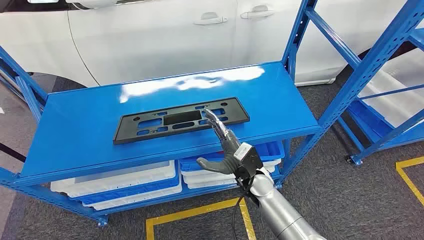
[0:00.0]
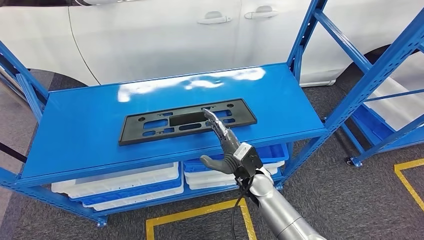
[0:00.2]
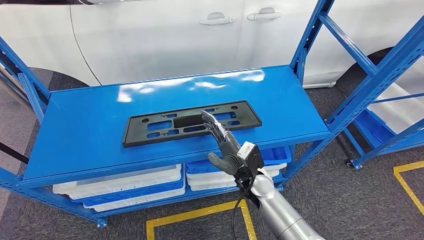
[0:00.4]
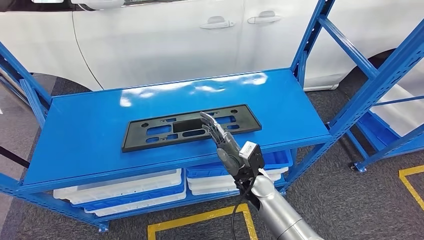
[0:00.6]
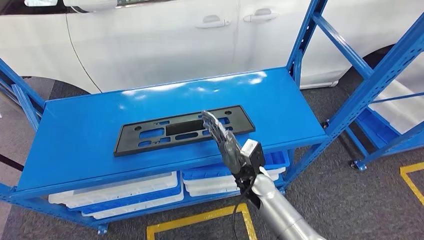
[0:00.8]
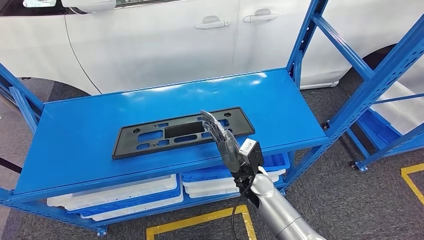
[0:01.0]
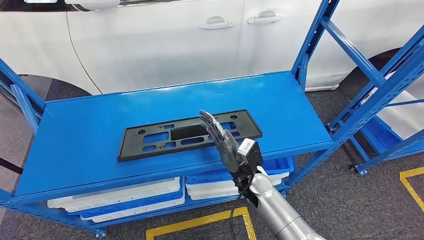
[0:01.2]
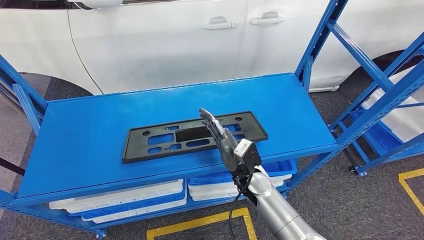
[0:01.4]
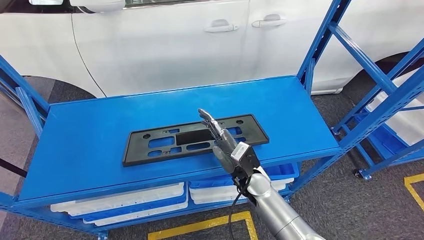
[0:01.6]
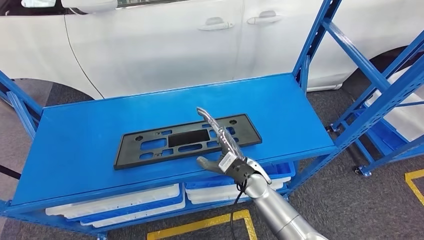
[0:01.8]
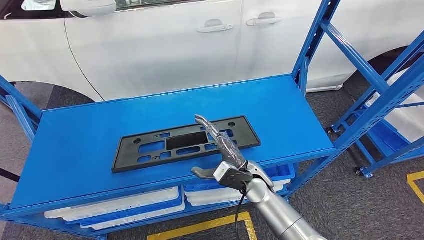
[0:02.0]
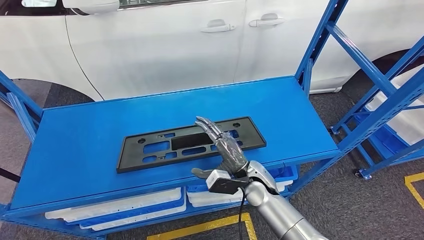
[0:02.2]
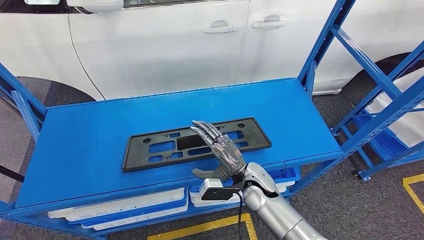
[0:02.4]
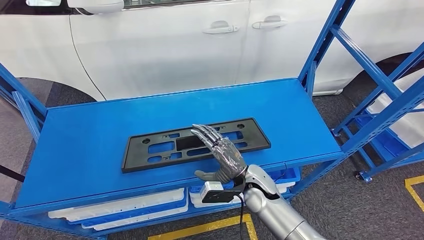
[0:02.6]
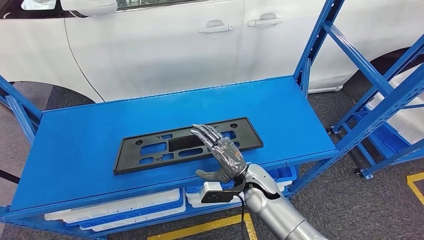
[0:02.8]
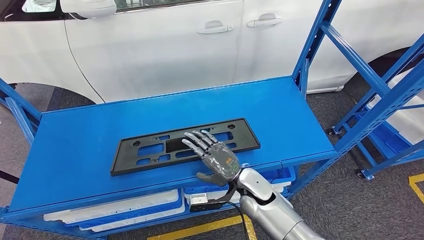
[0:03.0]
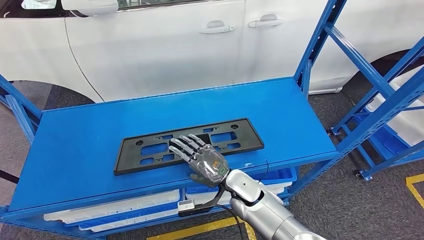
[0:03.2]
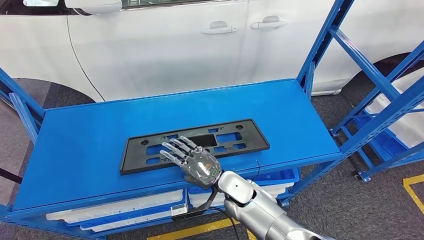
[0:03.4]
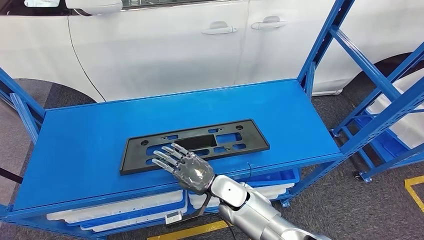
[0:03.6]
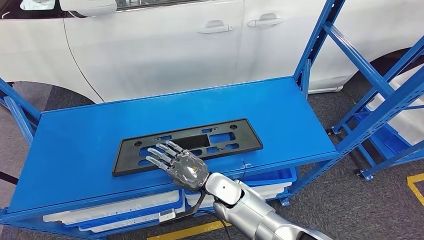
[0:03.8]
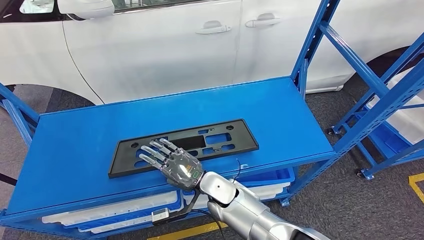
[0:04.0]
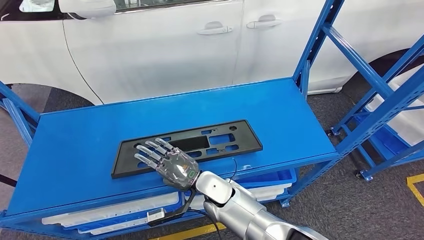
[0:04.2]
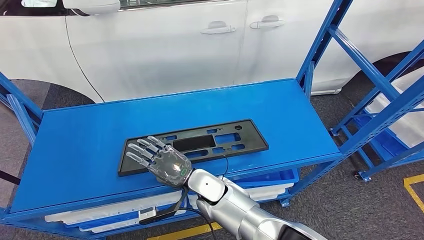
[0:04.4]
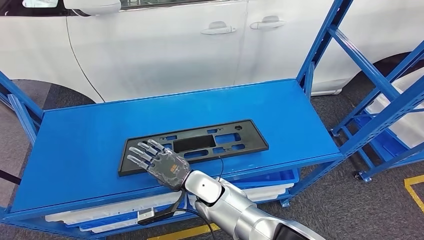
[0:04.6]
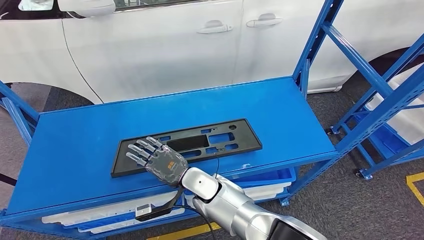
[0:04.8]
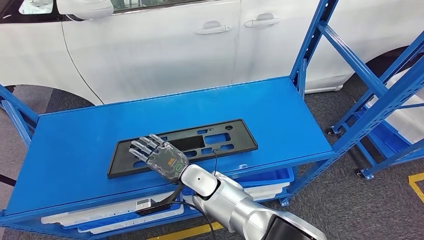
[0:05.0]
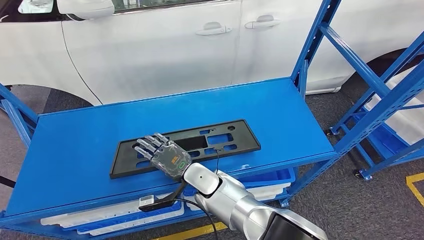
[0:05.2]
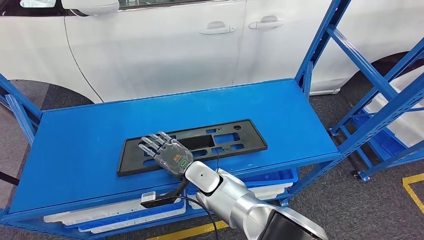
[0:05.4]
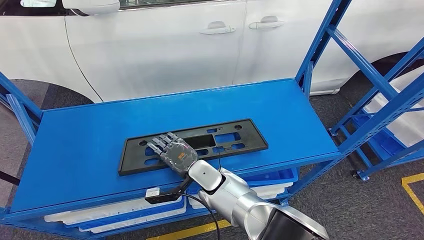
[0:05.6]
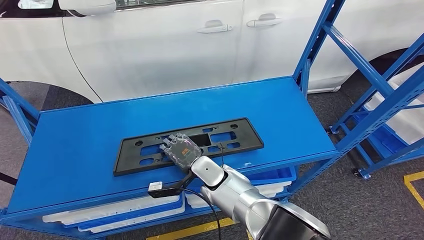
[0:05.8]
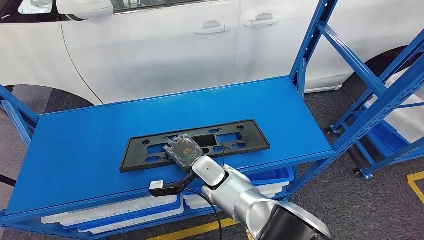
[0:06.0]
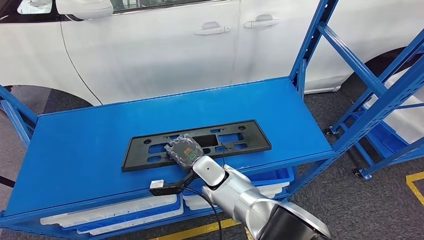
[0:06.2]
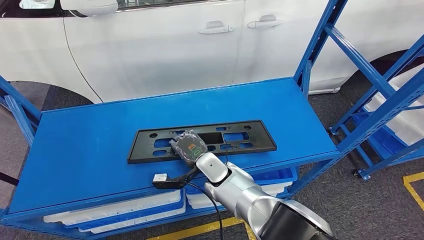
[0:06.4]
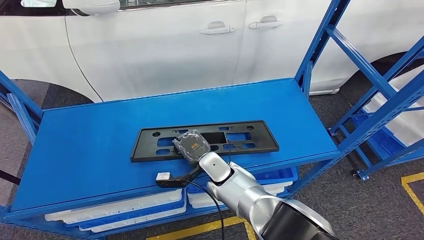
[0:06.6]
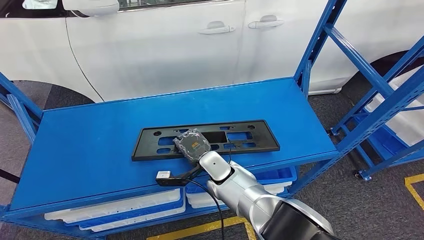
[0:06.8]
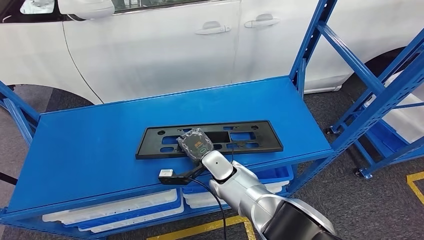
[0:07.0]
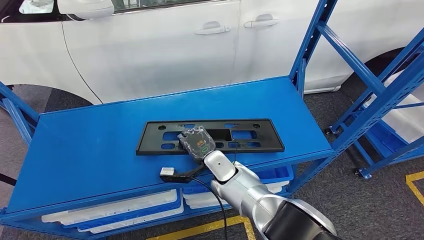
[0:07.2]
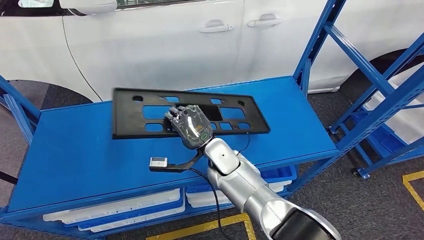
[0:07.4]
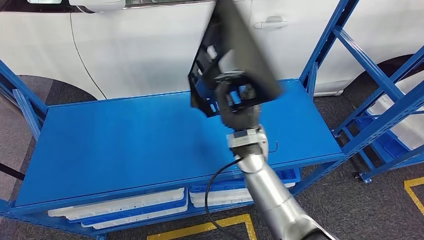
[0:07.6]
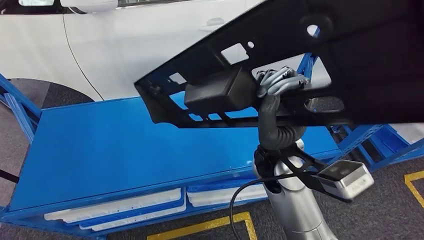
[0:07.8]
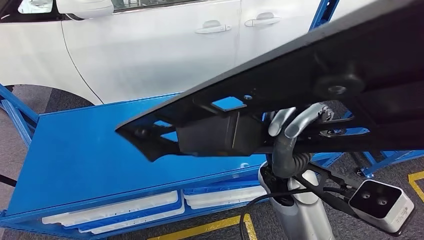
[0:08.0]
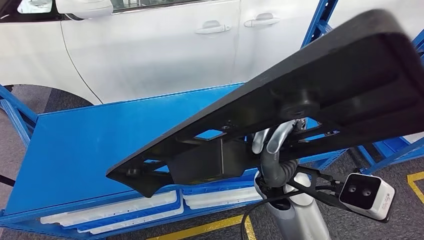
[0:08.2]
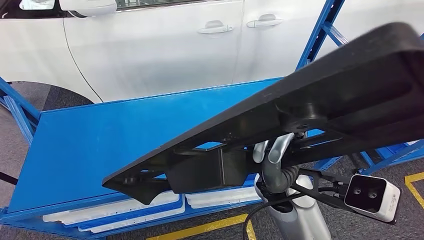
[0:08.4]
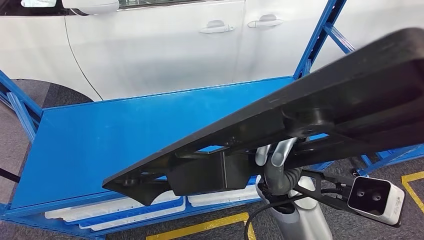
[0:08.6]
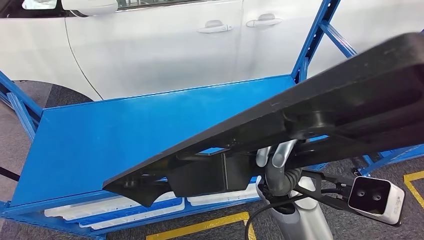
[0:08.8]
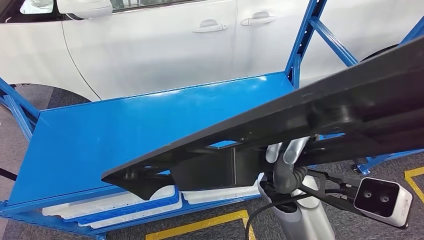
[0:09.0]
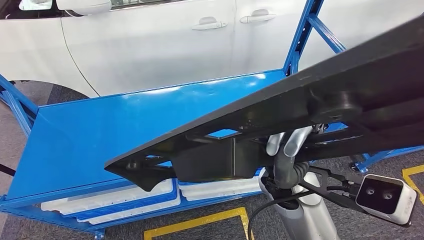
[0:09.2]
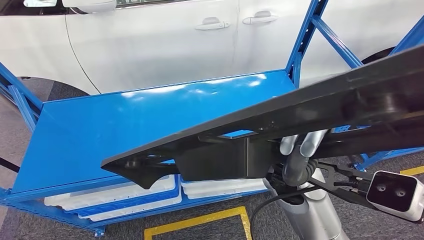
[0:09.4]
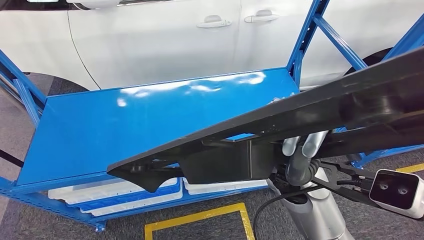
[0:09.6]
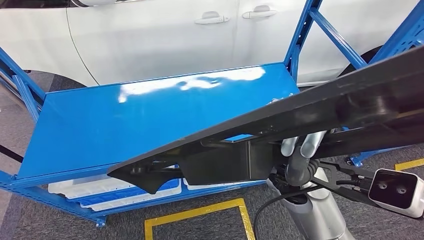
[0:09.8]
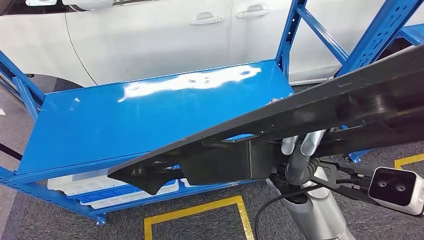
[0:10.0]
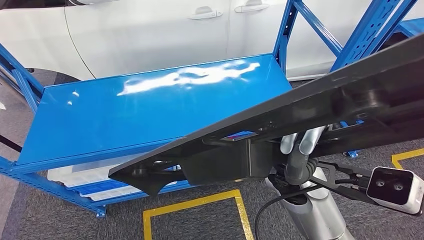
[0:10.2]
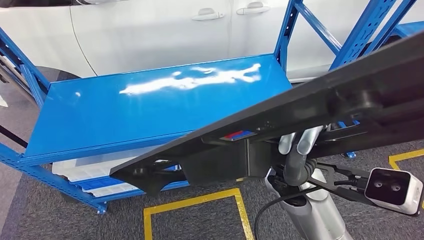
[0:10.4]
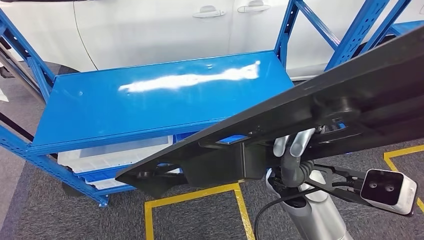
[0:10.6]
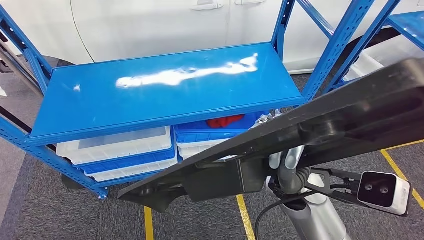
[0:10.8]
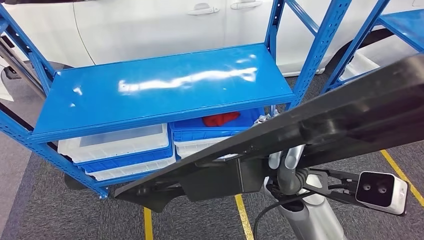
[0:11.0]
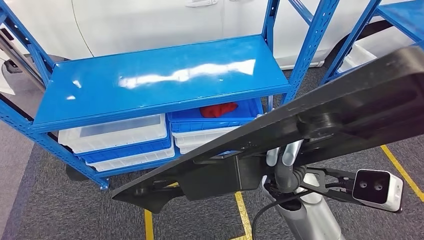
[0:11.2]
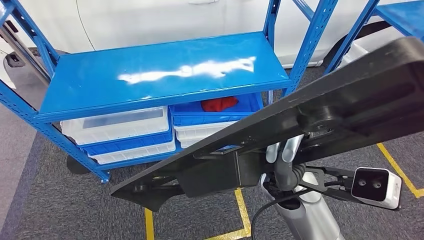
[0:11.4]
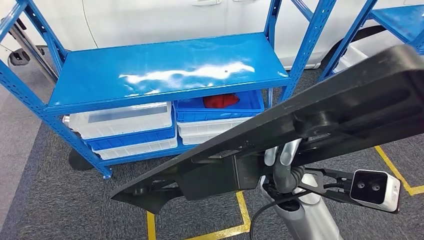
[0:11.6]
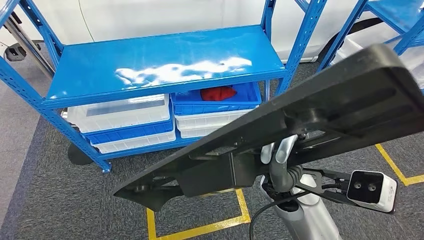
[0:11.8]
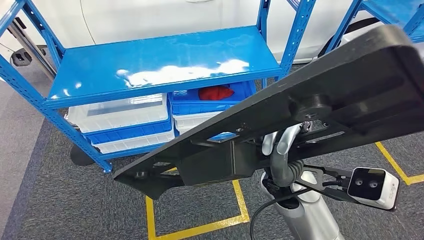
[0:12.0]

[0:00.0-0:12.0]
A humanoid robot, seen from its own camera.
Step, 0:00.0 to 0:07.6: Pick up the large material from the shelf.

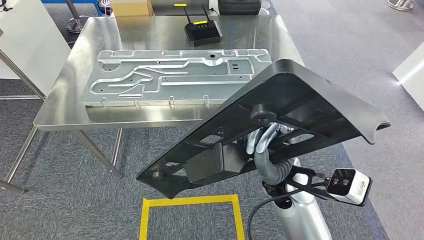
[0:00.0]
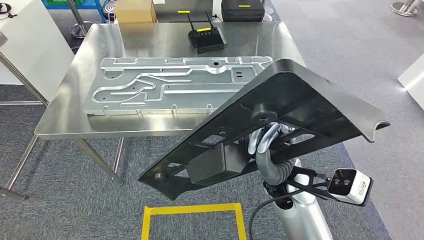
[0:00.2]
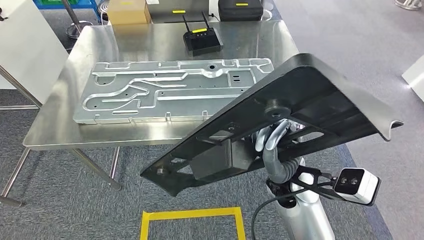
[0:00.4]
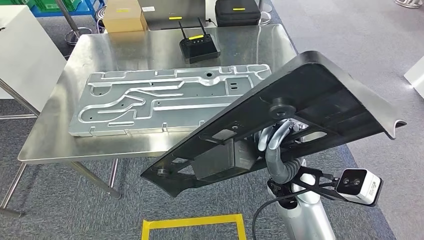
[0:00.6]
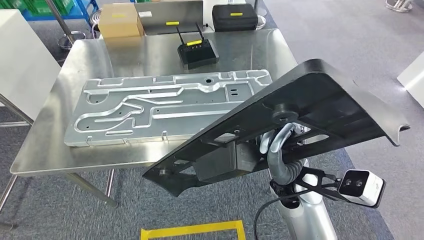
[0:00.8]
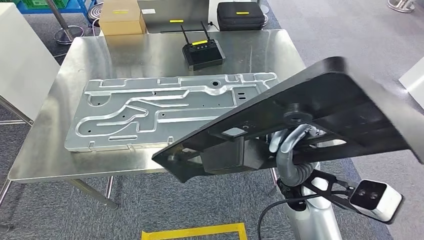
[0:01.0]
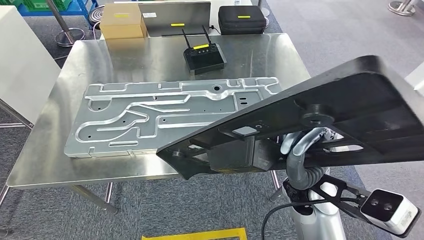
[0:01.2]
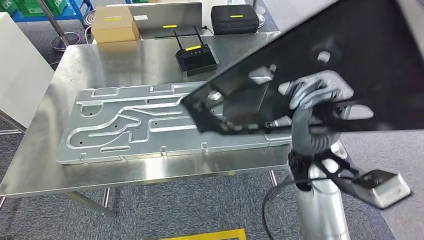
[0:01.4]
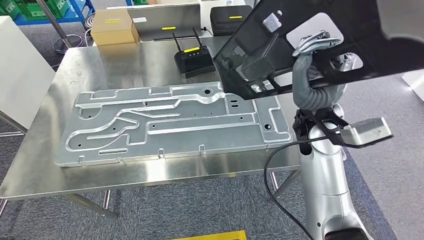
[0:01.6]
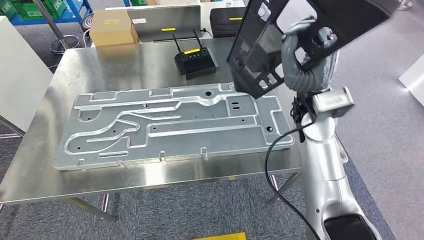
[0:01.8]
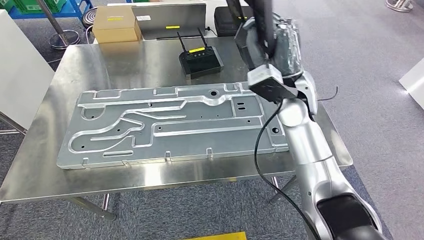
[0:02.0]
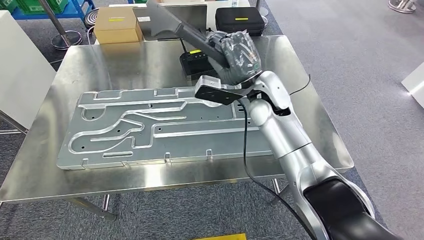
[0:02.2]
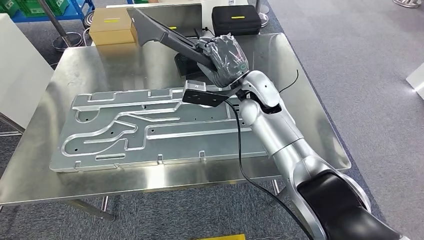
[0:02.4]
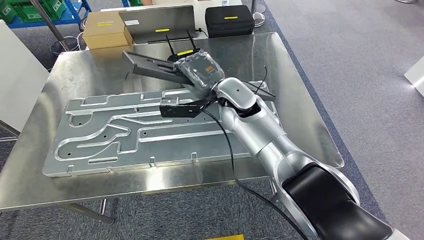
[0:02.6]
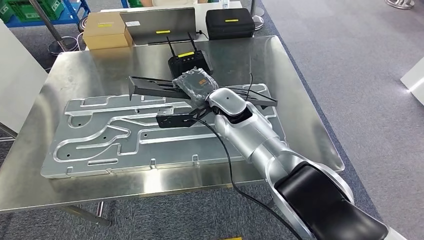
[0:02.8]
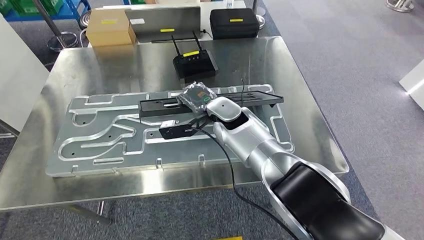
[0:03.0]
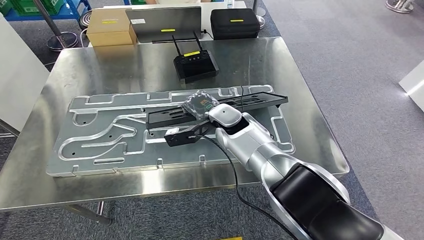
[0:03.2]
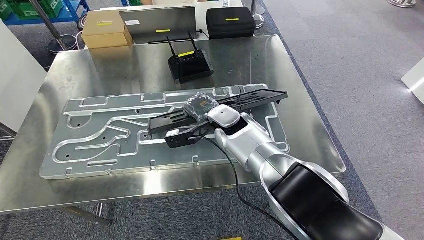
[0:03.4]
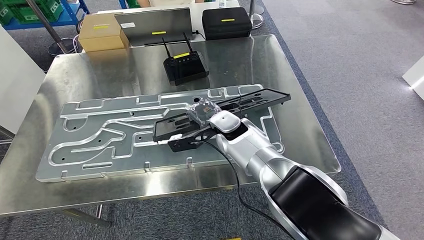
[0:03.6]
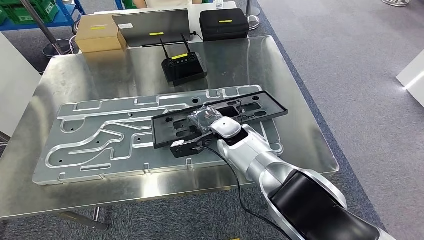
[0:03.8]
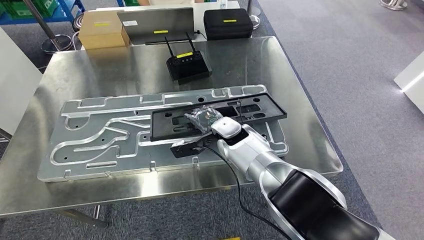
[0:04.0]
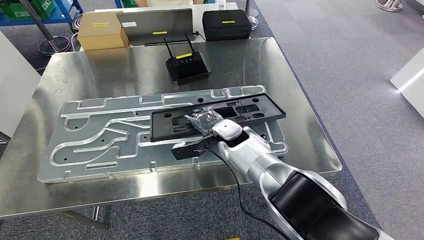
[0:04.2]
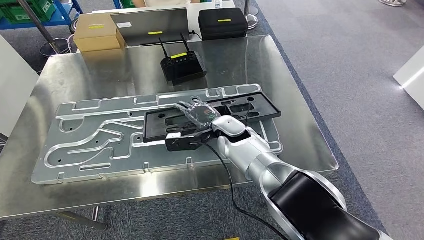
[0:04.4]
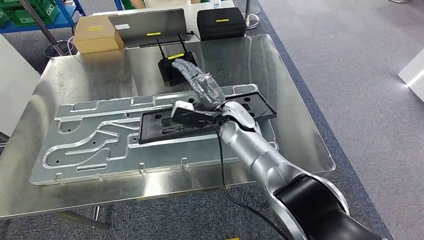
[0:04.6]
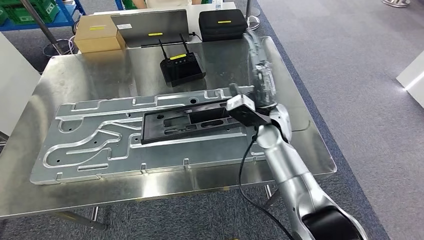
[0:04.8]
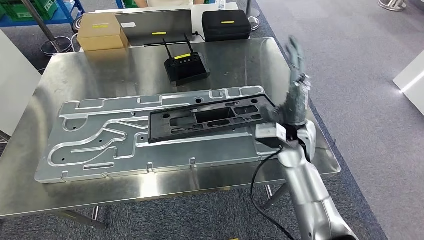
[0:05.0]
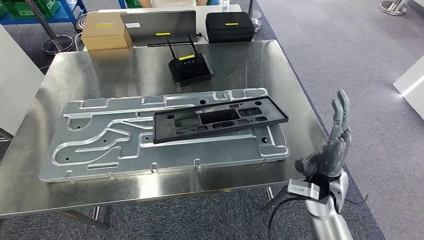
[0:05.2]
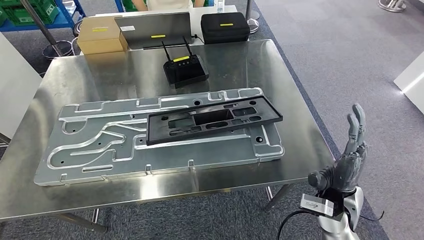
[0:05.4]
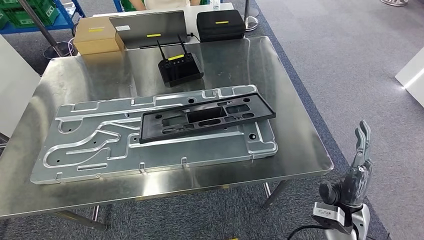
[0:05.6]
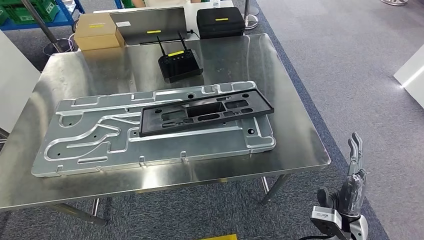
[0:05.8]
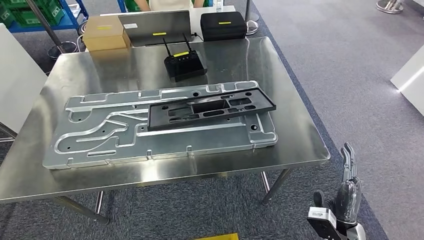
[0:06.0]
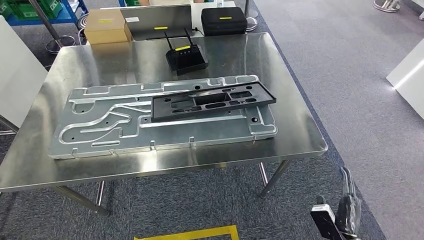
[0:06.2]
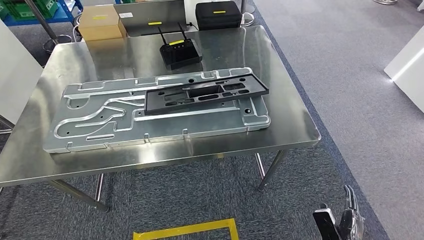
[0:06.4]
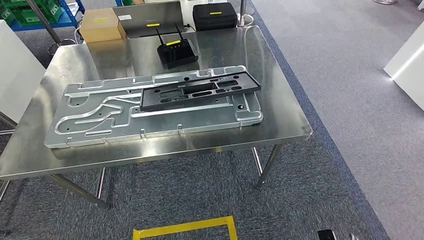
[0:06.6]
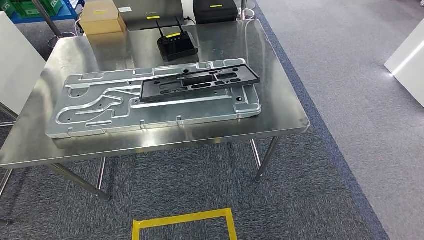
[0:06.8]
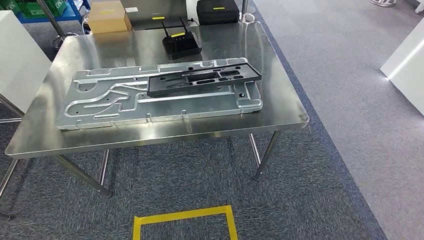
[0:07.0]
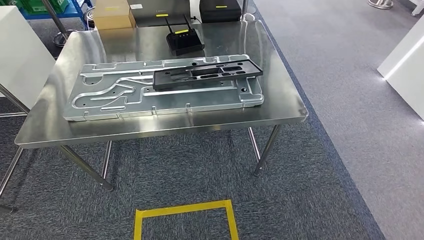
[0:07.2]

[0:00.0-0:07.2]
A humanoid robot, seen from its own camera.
Step, 0:02.6 to 0:04.8: Insert the large material into the corresponding slot on the workbench.
